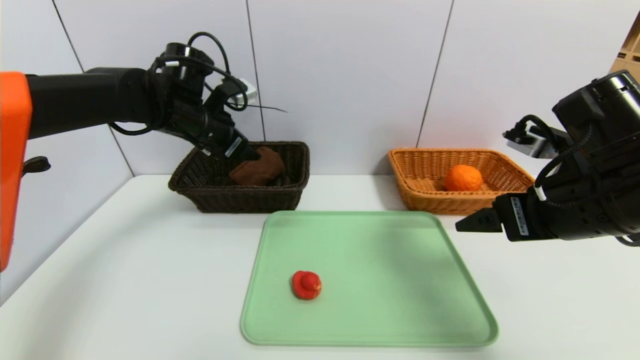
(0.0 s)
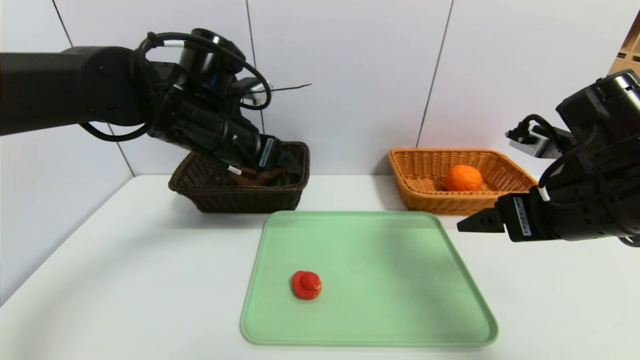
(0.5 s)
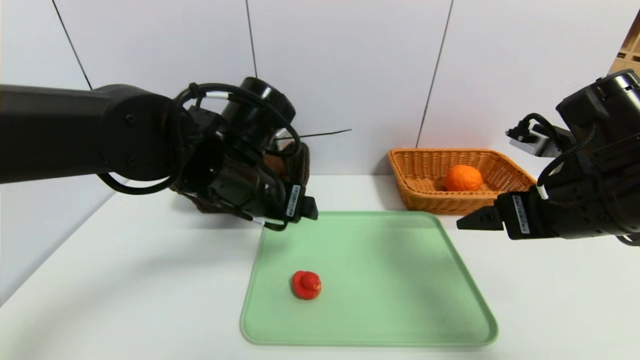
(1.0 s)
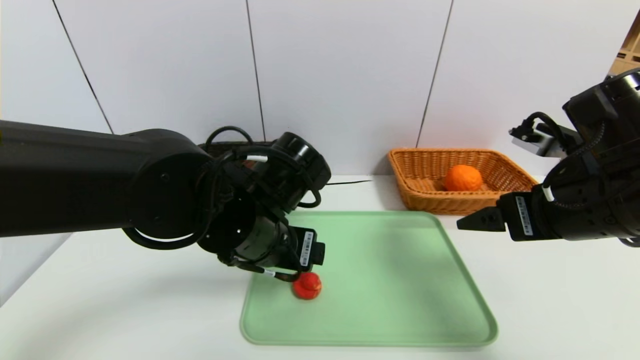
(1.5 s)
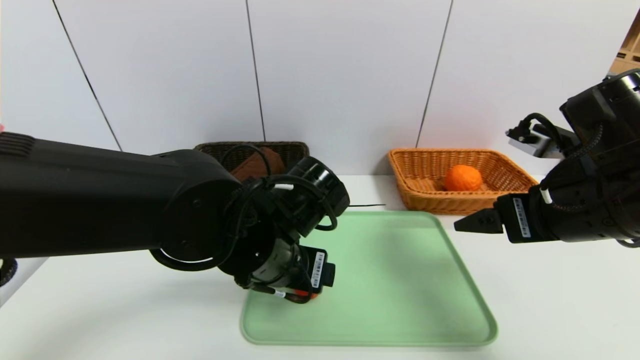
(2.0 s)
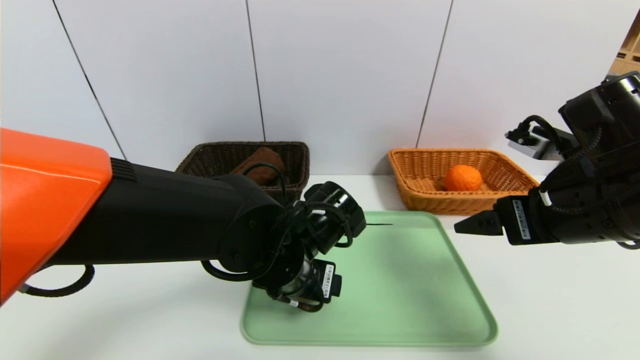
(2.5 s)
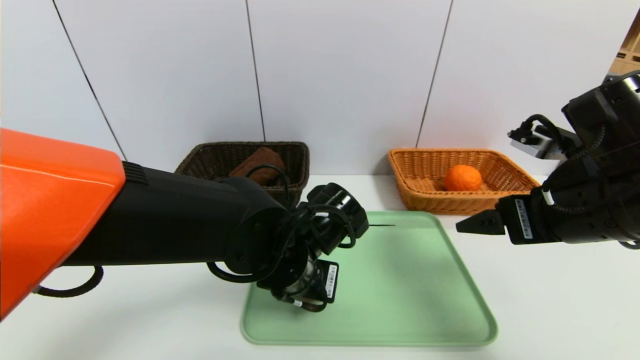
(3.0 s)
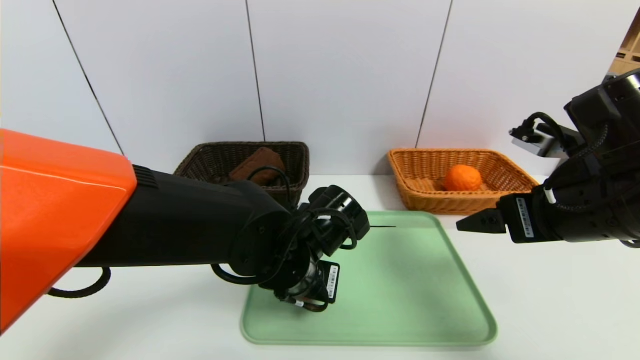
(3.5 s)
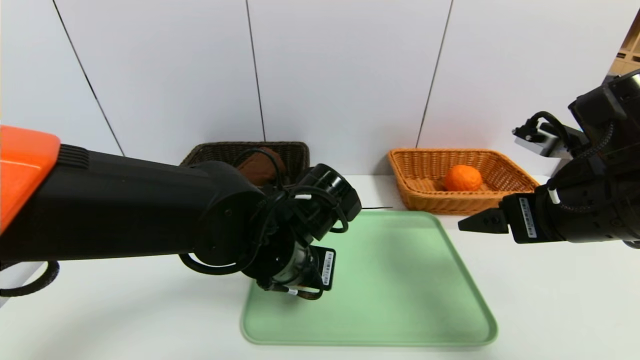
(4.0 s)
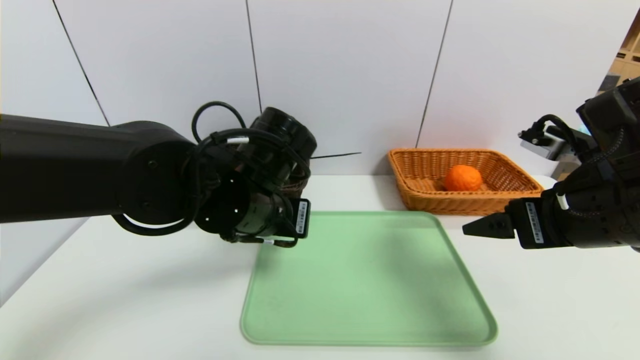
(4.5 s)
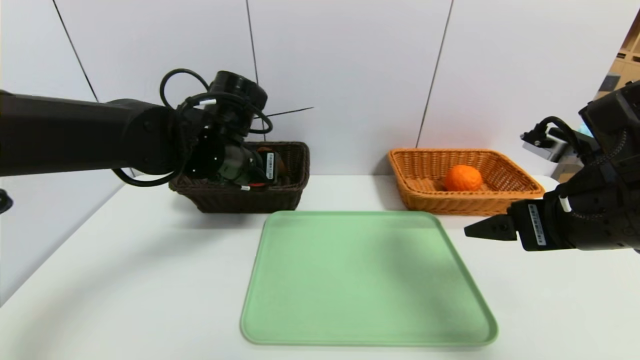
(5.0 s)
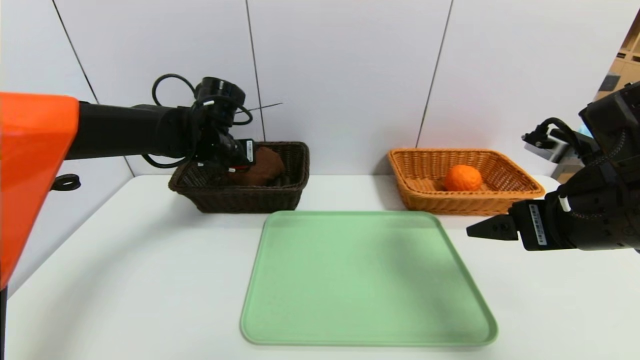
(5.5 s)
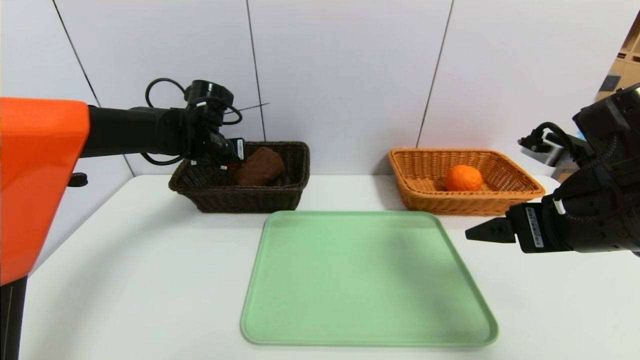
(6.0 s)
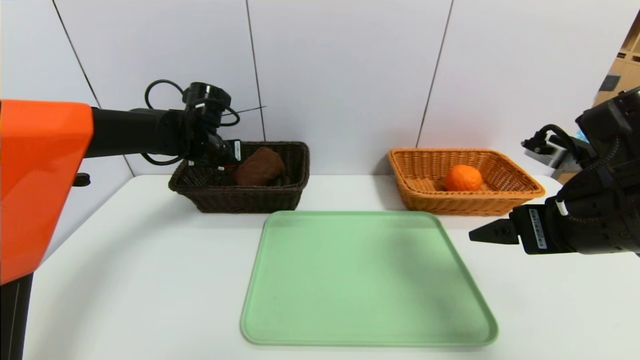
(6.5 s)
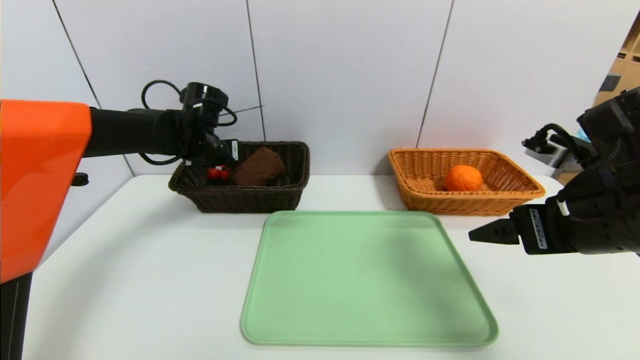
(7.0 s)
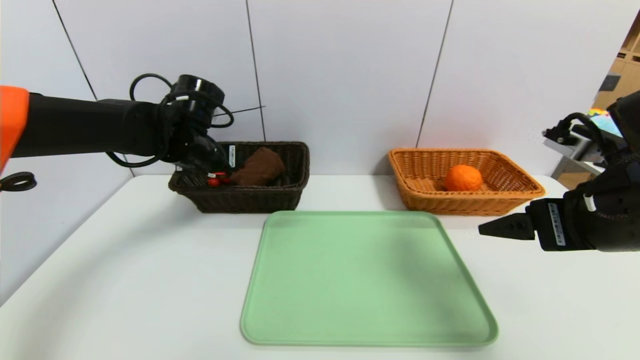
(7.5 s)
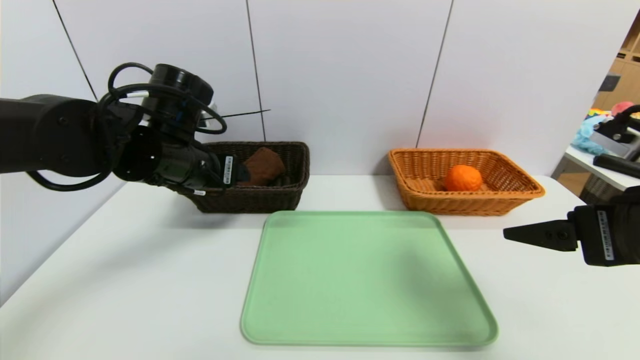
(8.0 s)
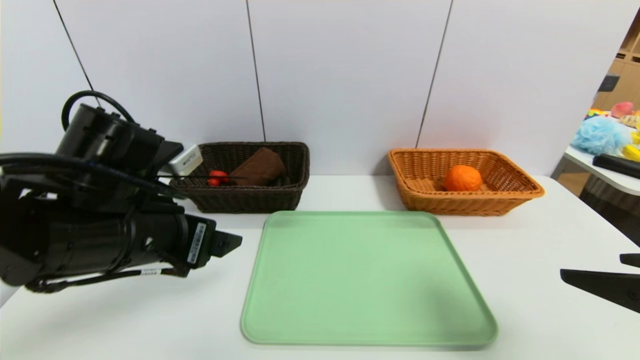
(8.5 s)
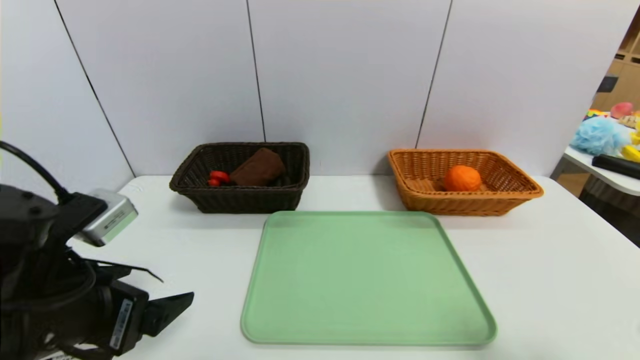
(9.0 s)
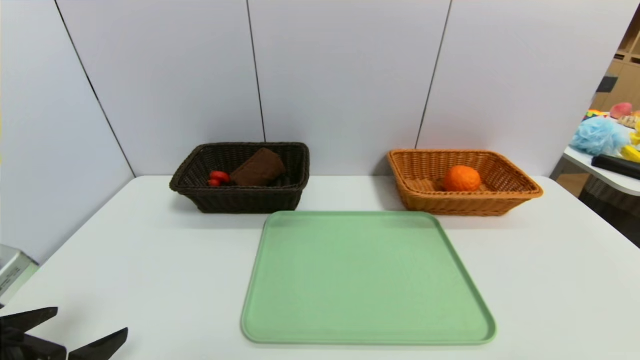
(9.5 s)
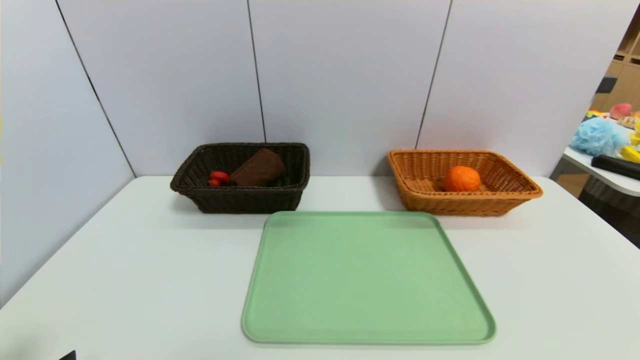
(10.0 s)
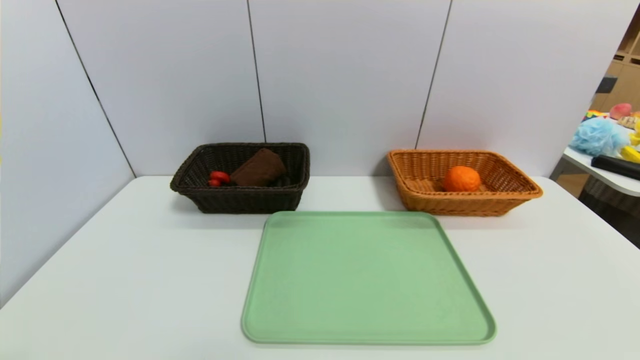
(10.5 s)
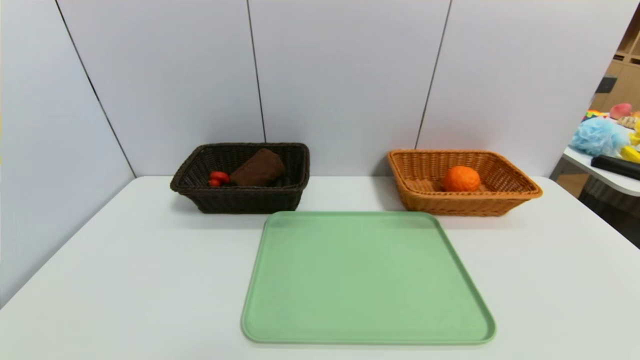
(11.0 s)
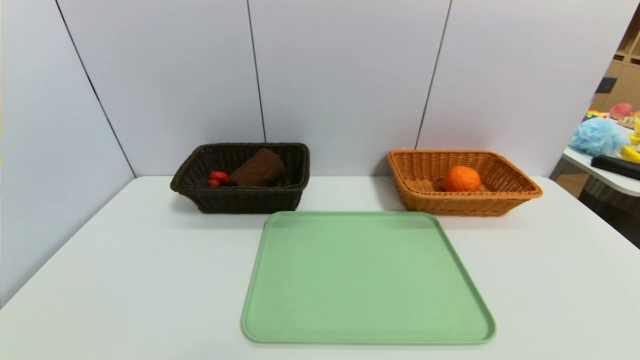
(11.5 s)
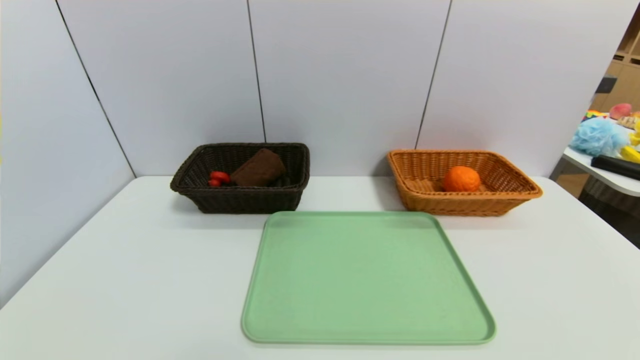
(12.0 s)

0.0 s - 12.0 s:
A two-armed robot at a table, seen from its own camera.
Task of the whole recording: place the food in the right basket with the right gripper, and place the non food items in the left basket with the left gripper.
Step, 0.0 s - 7.0 s: Grasp the red duck and put it in the left basket.
0.0 s - 2.0 s: The left gripper heads backward, to the right and downward, covering some 25 cm.
2.0 s - 4.0 s: The left gripper closes its fingers.
4.0 s - 6.0 s: The left gripper moves forward and to the left, some 25 cm.
6.0 s - 8.0 s: The right gripper changes place by some 5 cm; the left gripper goes some 15 cm backward, and opens its fingers.
8.0 s - 10.0 s: The right gripper goes about 20 cm backward. Meanwhile the left gripper is displaced backward and to the left by some 30 cm.

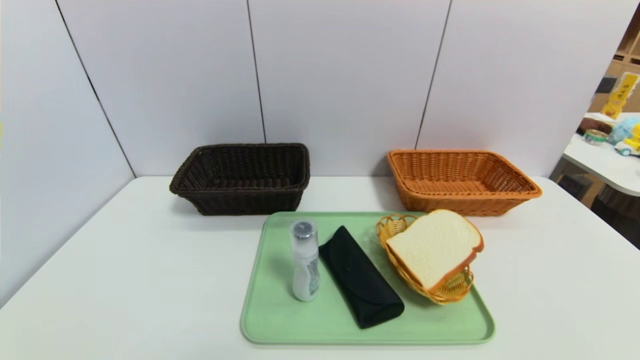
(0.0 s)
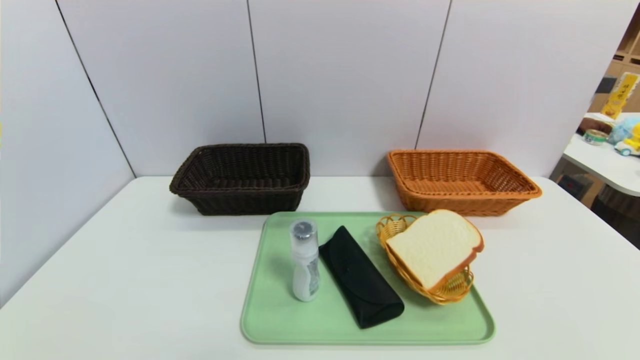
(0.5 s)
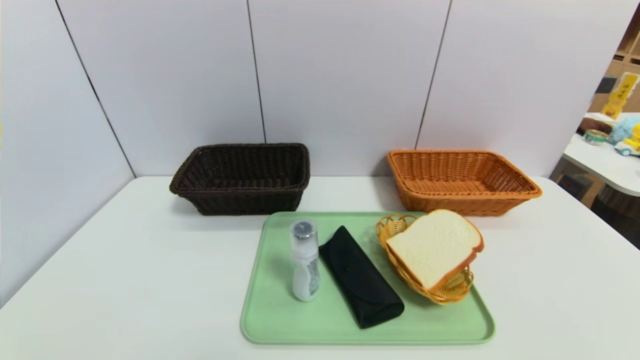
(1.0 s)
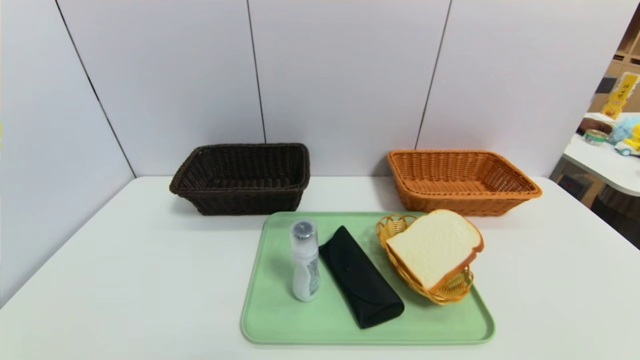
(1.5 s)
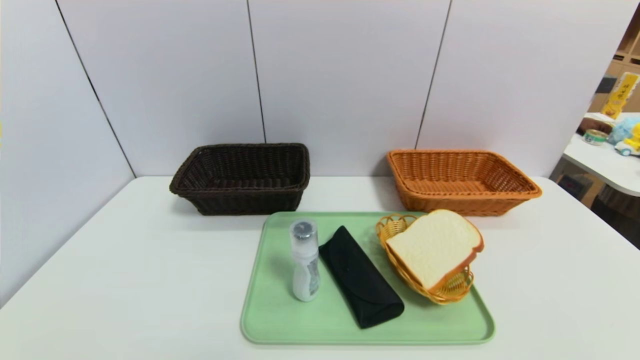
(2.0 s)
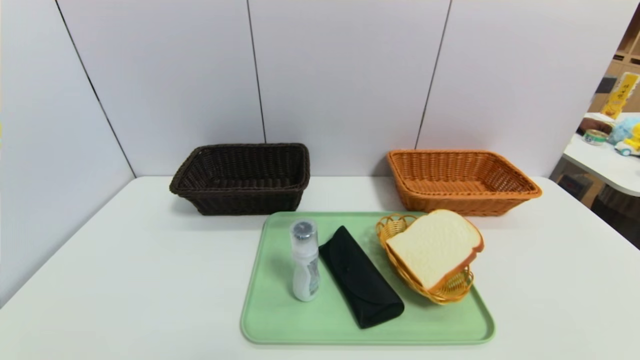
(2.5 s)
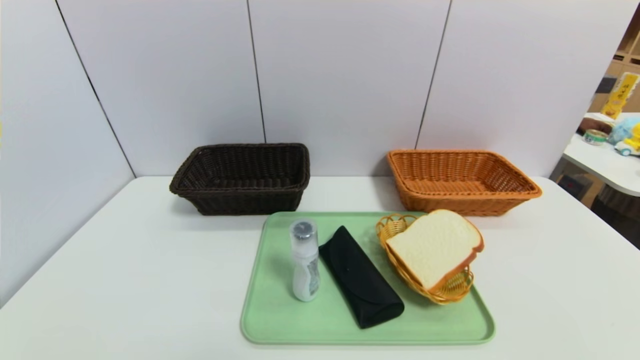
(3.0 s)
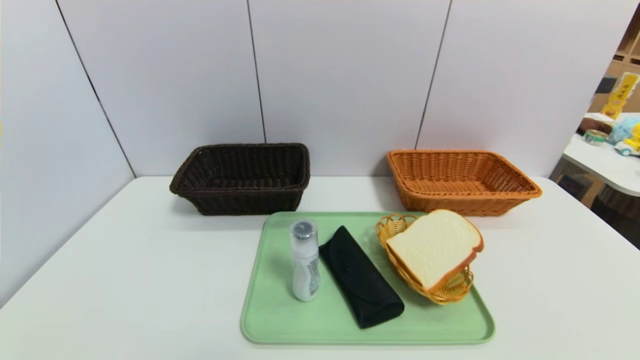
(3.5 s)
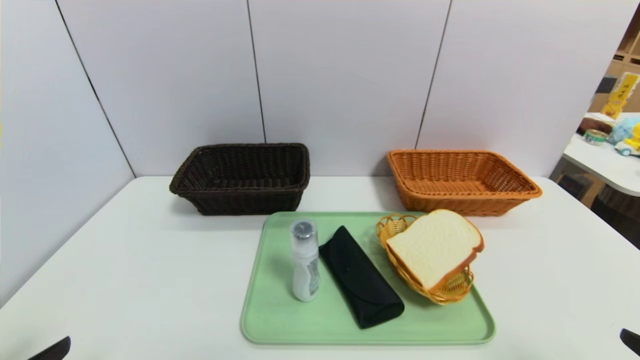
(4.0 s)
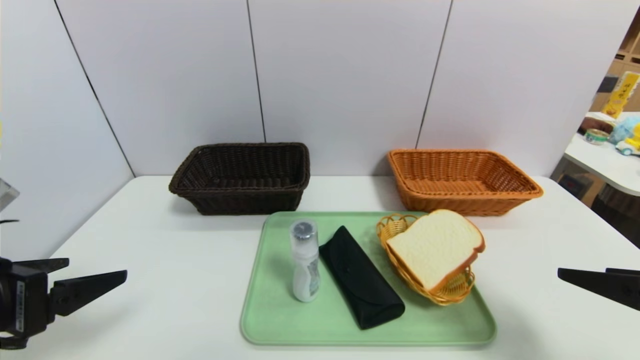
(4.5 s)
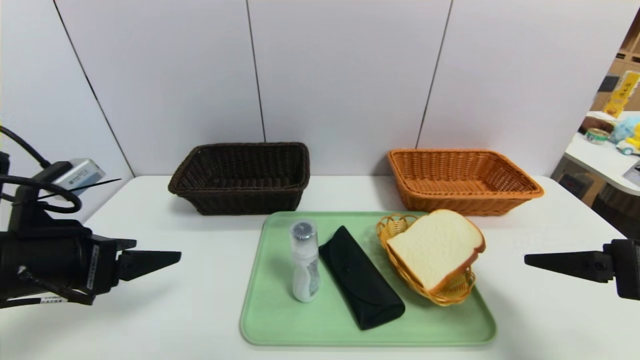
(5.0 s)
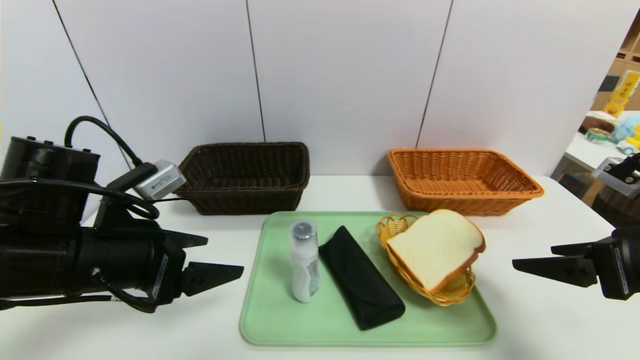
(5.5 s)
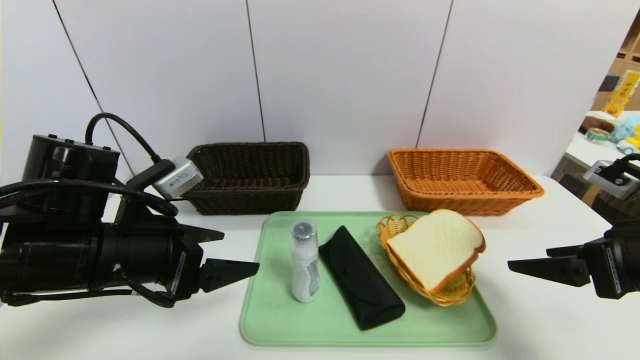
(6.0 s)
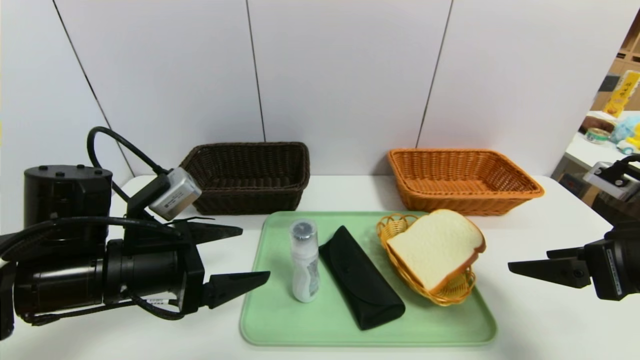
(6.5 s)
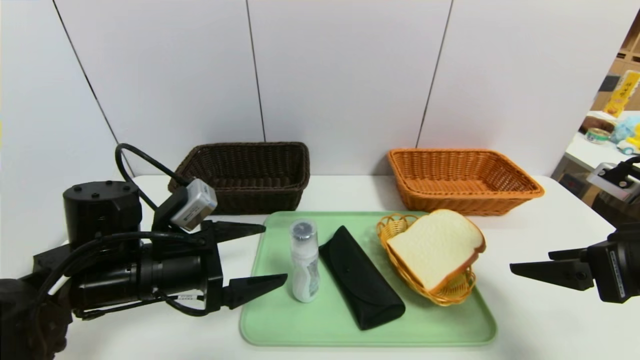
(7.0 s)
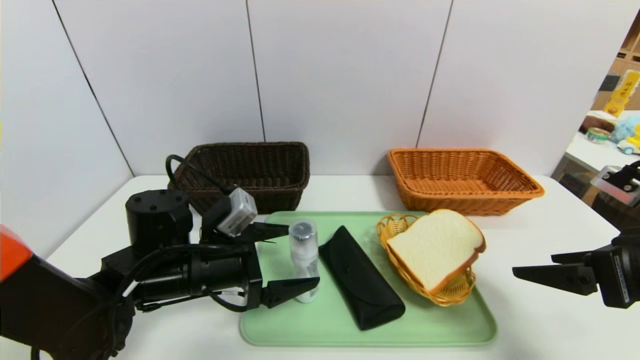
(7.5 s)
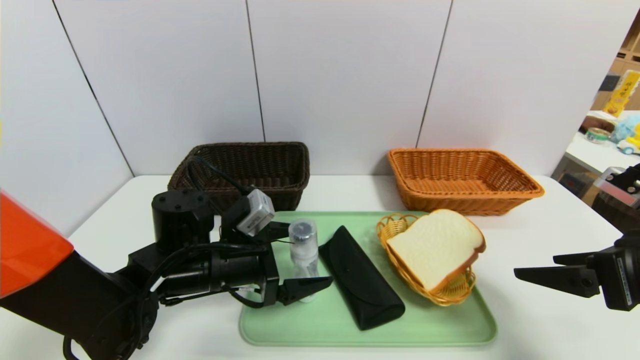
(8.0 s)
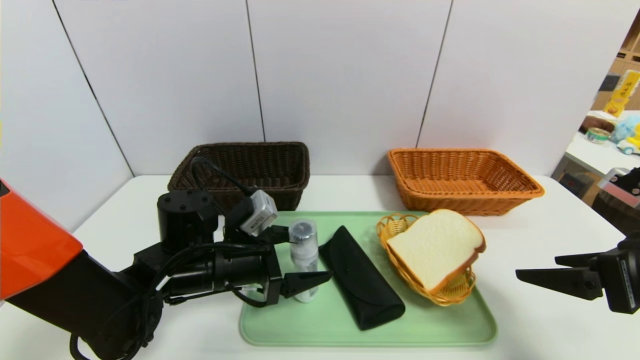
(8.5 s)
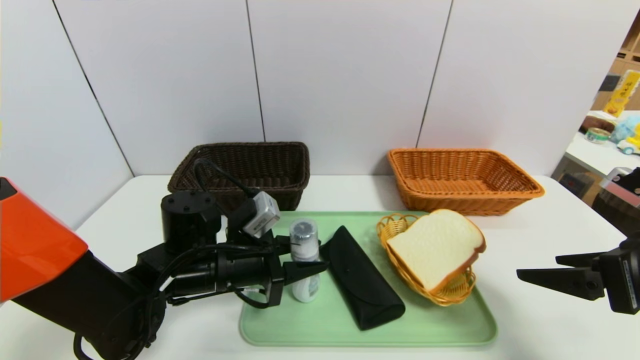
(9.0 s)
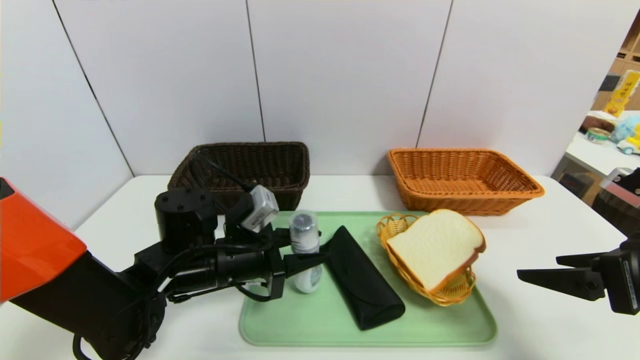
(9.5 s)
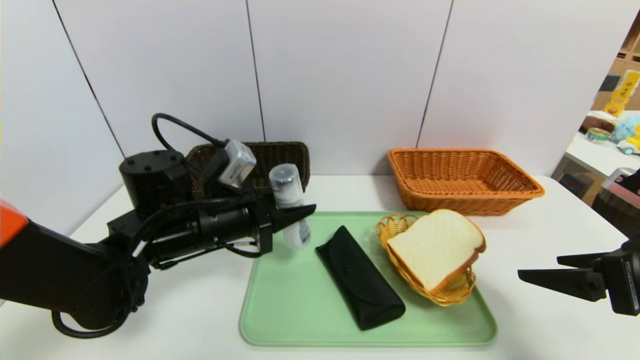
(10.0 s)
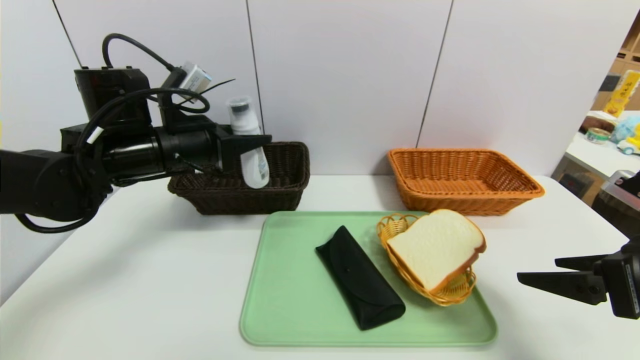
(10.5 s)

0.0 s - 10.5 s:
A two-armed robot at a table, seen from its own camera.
Task of the whole recording: place the food in the right basket with the right gripper, and place the non food items in the left basket with the left gripper.
0.0 s - 2.0 s: The two grippers keep their place.
4.0 s - 6.5 s: The right gripper goes some 15 cm forward; the left gripper heads forward and to the right, covering roughly 20 cm.
6.5 s - 8.5 s: The left gripper moves to the right, downward and forward, about 10 cm.
8.5 s - 10.5 s: The left gripper is displaced upward, to the left and forward by roughly 15 cm, and closes up.
